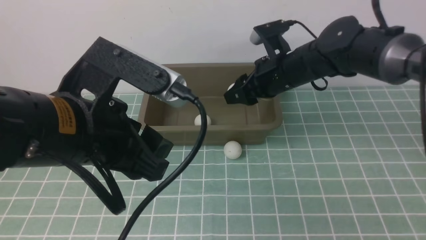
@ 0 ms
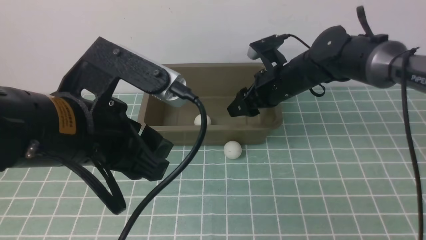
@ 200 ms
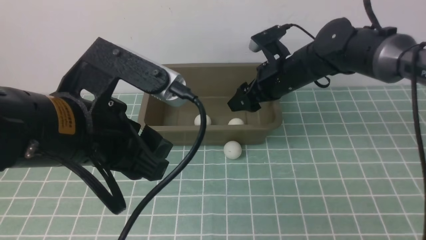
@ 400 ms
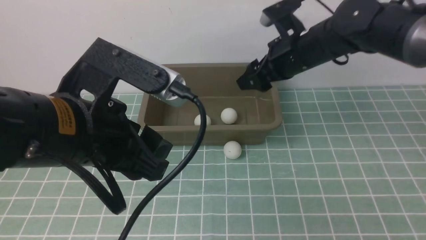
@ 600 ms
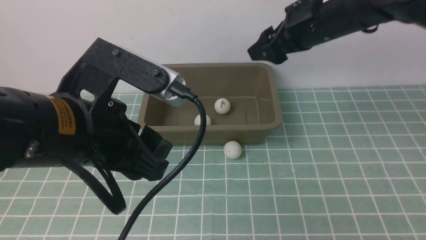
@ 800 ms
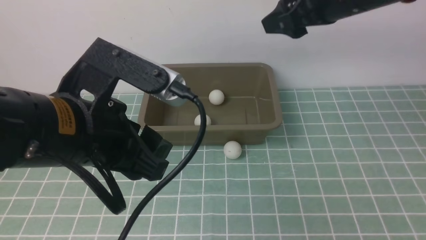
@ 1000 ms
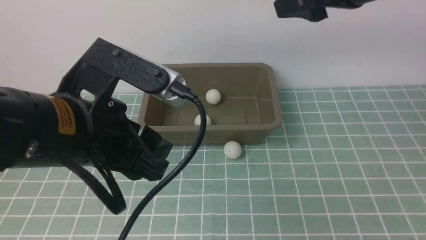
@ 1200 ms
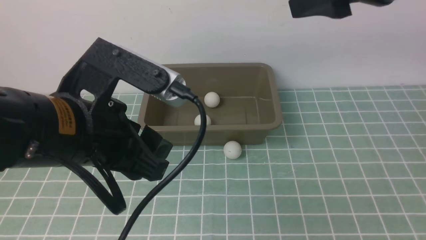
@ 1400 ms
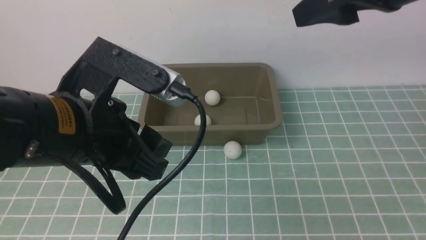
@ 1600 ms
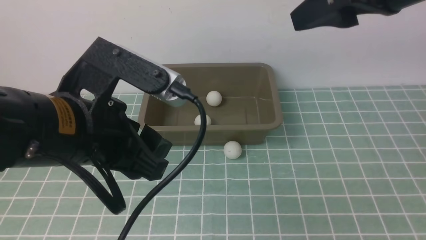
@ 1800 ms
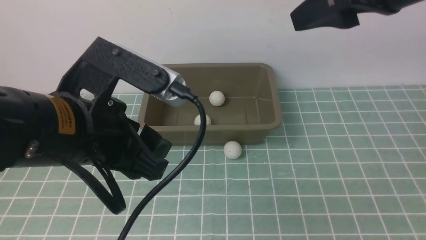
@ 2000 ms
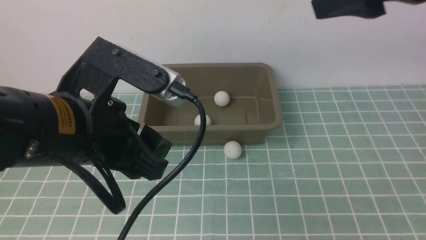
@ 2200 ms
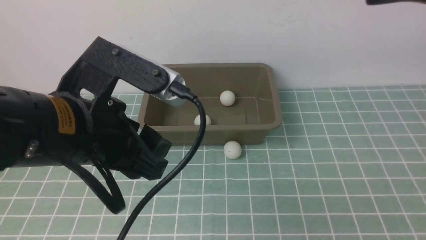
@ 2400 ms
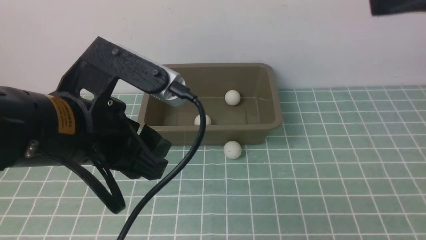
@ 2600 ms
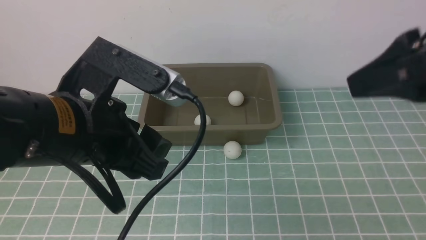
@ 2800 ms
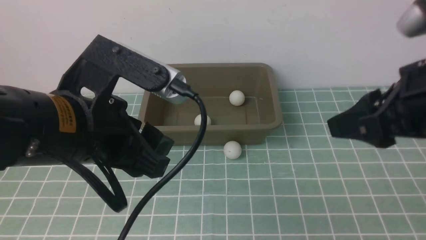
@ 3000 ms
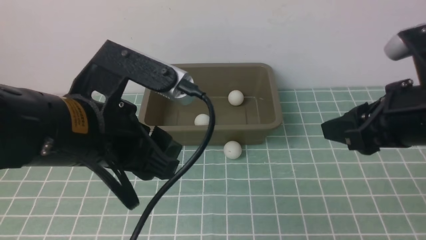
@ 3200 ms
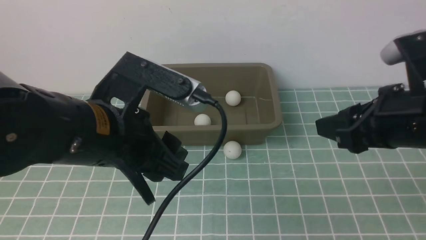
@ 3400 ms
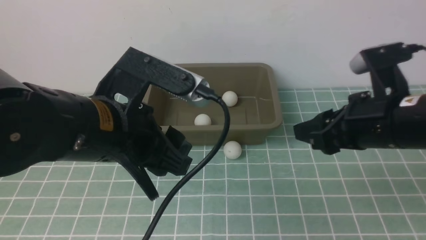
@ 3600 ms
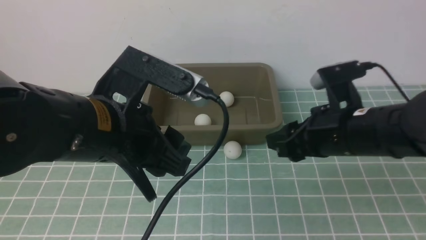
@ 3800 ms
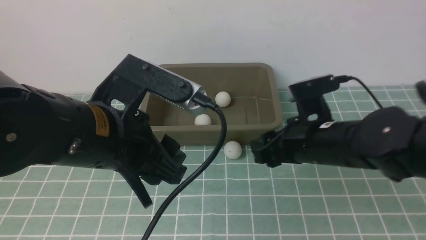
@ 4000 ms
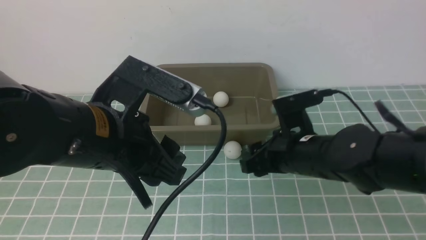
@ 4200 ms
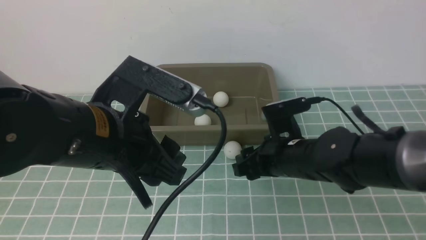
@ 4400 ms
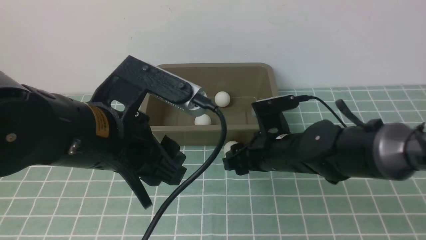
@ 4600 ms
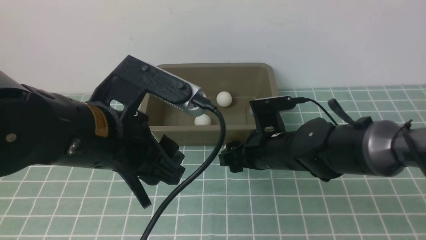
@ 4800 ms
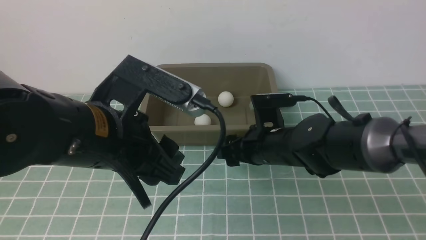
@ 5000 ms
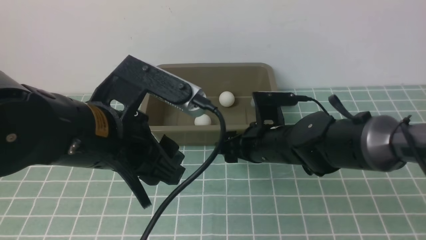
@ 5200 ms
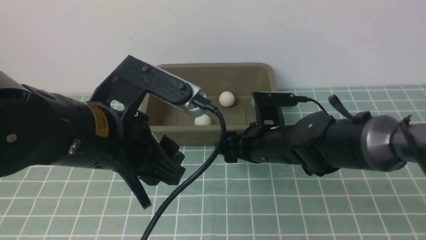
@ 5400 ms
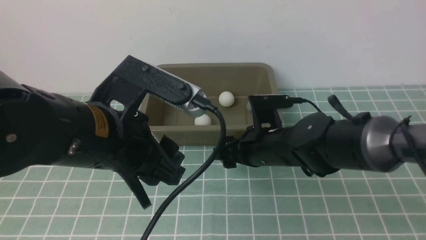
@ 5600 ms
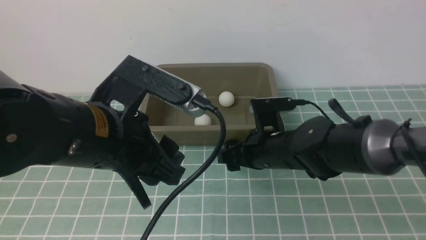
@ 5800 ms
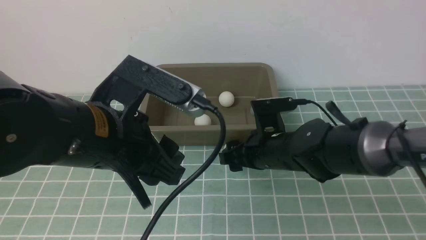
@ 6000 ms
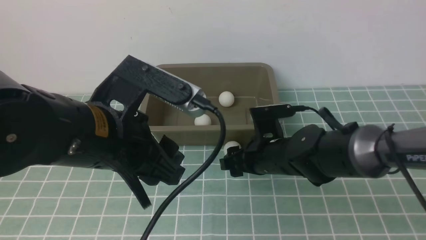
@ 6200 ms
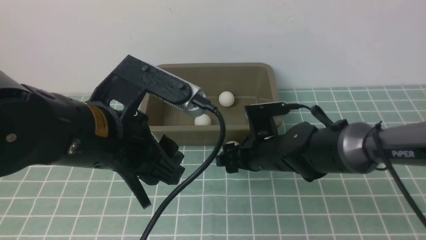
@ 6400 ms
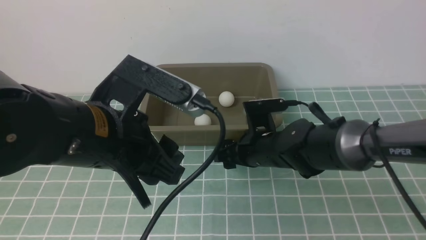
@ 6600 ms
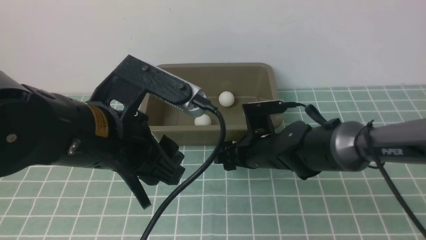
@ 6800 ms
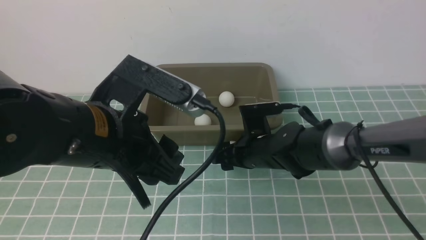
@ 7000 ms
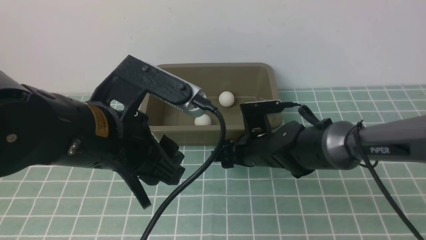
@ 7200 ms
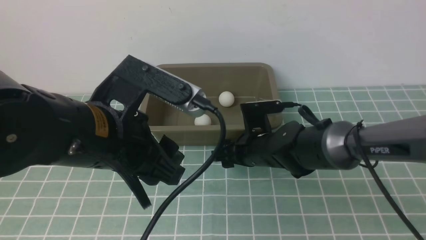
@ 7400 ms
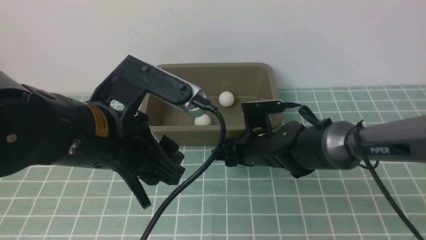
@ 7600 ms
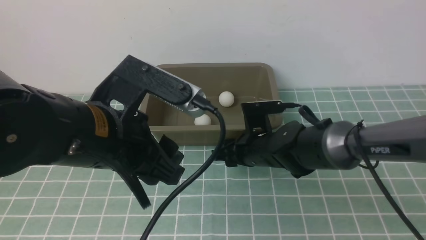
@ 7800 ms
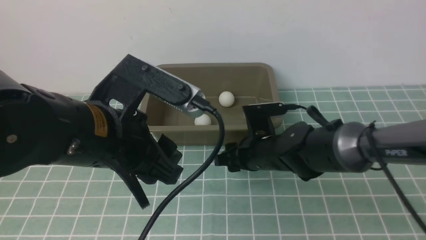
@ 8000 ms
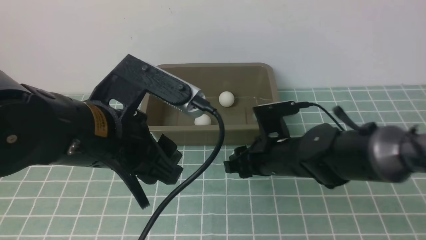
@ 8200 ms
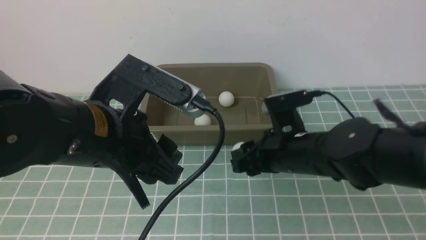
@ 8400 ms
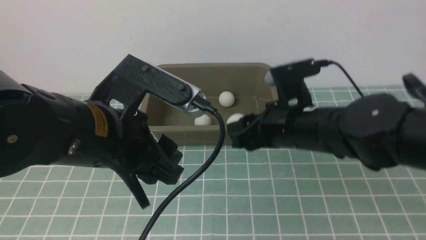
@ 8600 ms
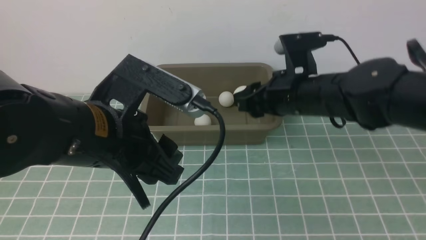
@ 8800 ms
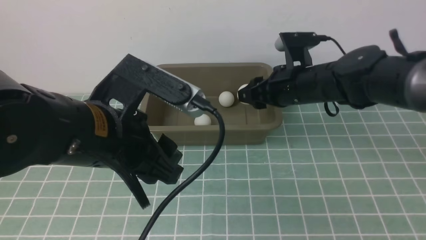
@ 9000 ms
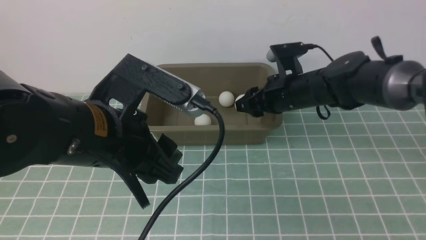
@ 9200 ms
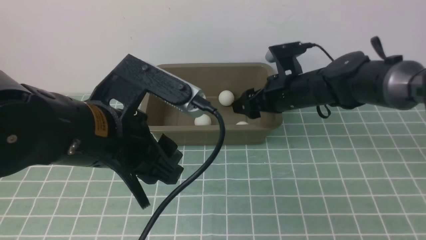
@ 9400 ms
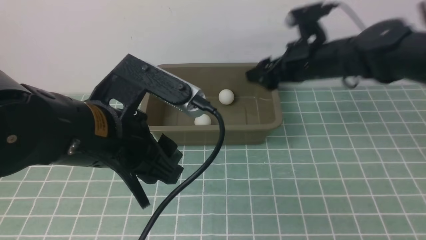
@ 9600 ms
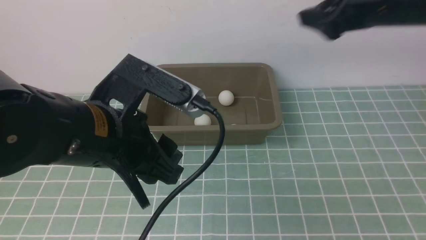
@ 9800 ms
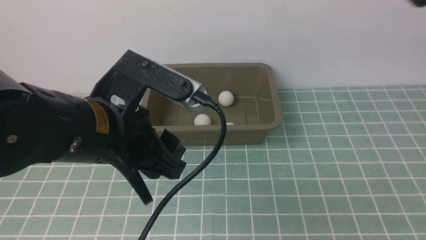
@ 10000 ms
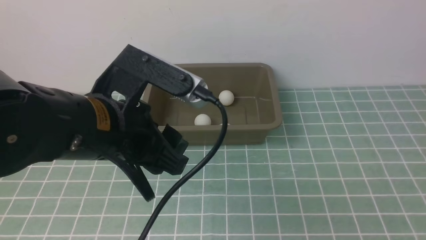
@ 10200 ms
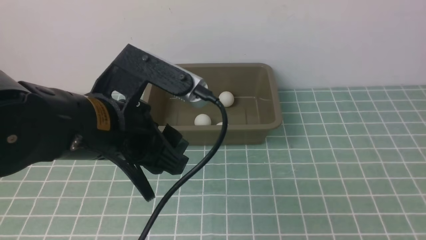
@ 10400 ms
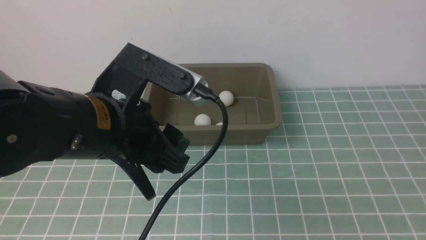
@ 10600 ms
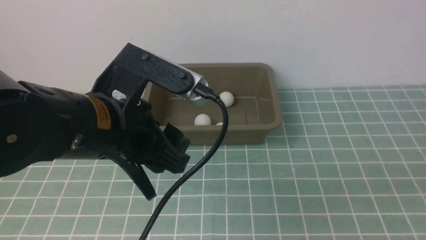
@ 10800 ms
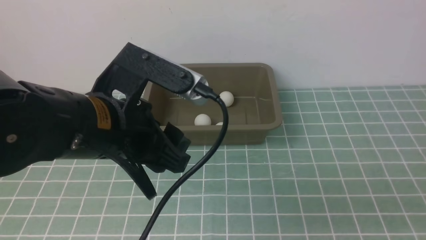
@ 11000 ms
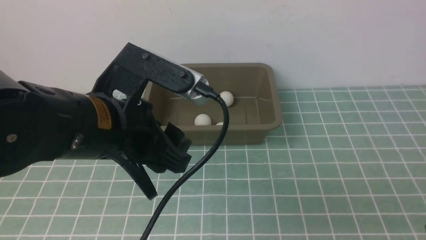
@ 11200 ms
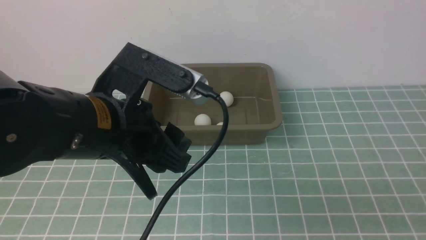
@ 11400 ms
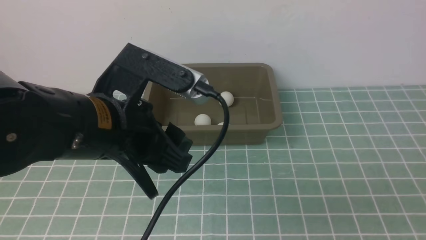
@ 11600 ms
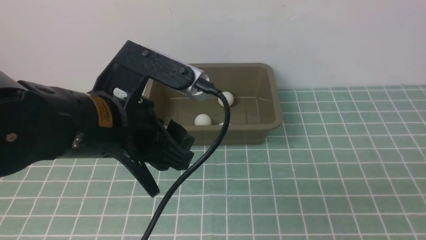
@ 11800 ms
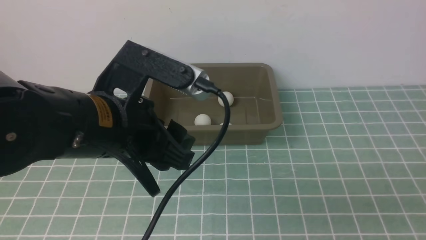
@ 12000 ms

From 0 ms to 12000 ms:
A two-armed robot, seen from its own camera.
Step, from 600 ms to 8000 ms: use the right arm to clamp the table tennis ball closest to it.
Step, from 8400 ms to 9400 ms: use the right arm to put the table tennis ball into the box.
From 0 ms to 1600 ms: The right gripper is displaced upward and backward by approximately 25 cm, and opens its fingers.
From 1600 ms to 3000 ms: The right gripper goes some 10 cm downward and backward, and closes.
From 3000 ms to 4400 ms: The right gripper shifts some 25 cm downward, to the left and forward.
From 4400 ms to 6000 ms: The grippers move only a little.
From 6000 ms to 7600 ms: The right gripper closes.
From 7600 ms to 9000 ms: The right gripper travels upward and to the right by about 10 cm.
From 9000 ms to 10400 ms: The right gripper heads backward, upward and to the right, covering about 35 cm, and opens up.
From 10400 ms to 12000 ms: The right gripper travels downward by some 25 cm, and closes.

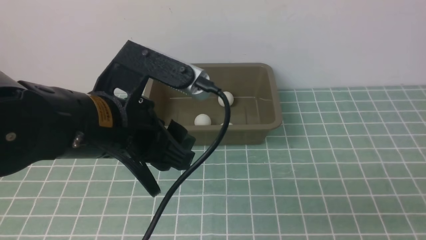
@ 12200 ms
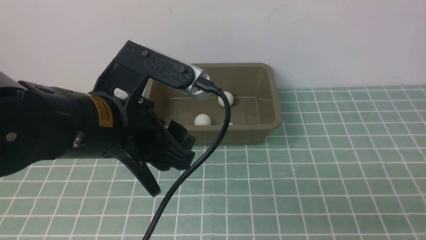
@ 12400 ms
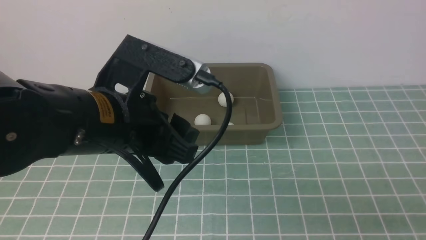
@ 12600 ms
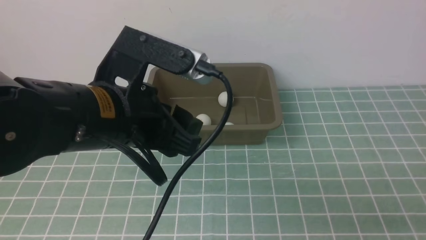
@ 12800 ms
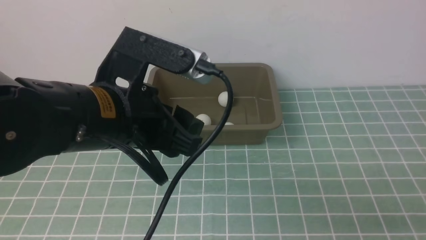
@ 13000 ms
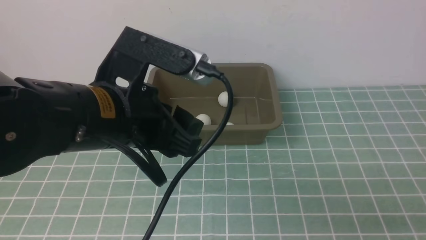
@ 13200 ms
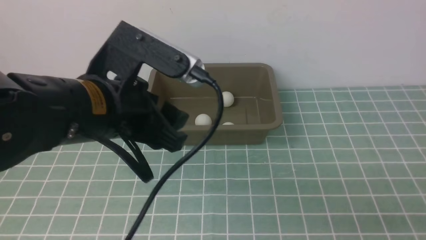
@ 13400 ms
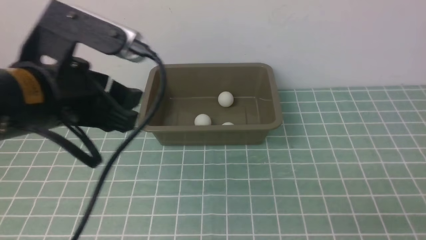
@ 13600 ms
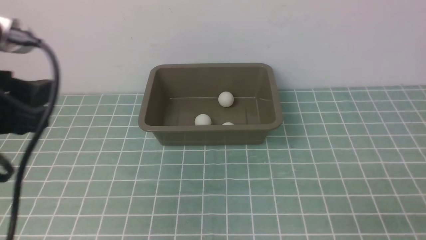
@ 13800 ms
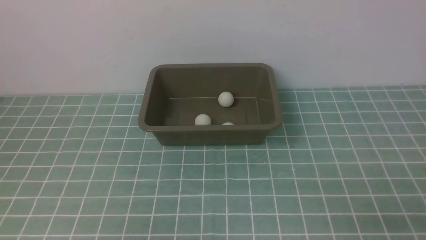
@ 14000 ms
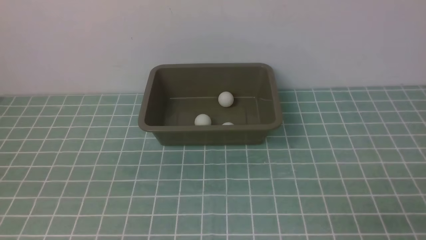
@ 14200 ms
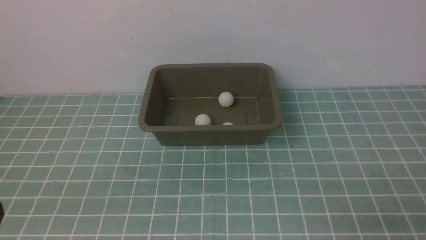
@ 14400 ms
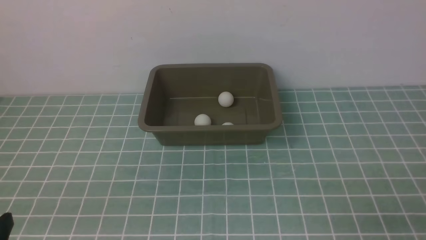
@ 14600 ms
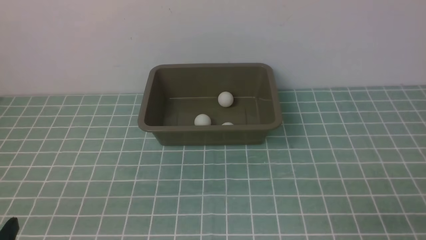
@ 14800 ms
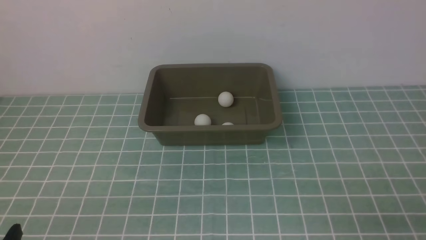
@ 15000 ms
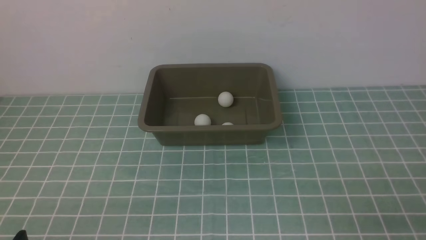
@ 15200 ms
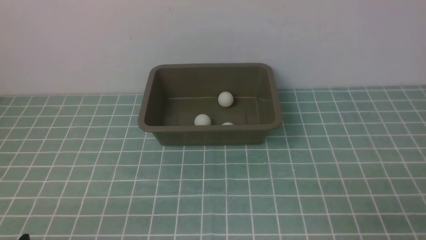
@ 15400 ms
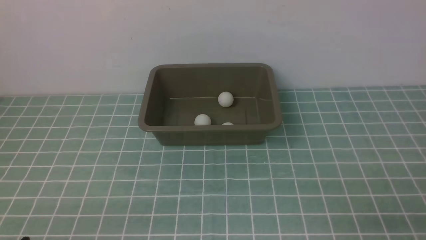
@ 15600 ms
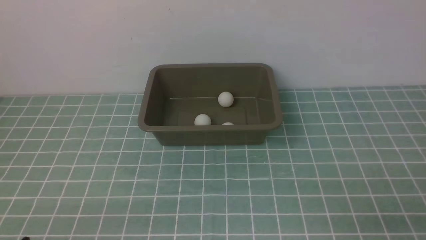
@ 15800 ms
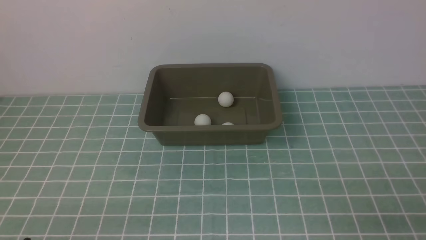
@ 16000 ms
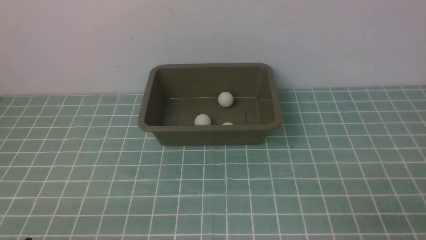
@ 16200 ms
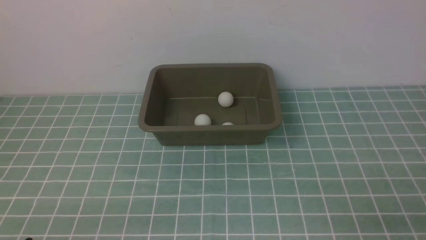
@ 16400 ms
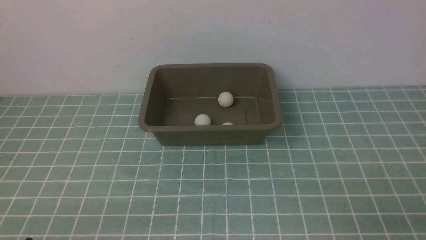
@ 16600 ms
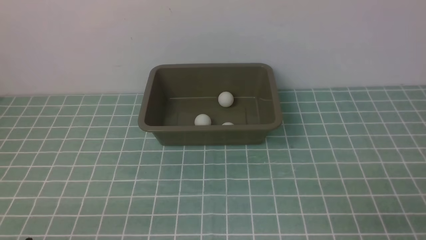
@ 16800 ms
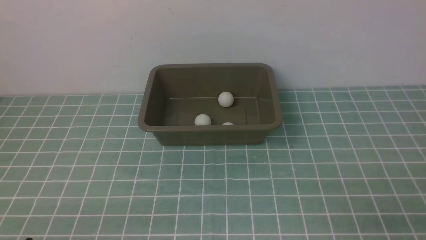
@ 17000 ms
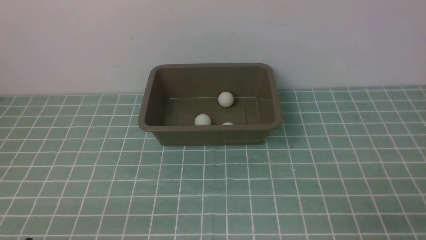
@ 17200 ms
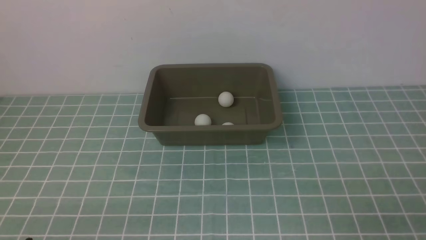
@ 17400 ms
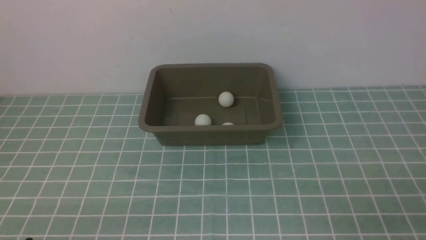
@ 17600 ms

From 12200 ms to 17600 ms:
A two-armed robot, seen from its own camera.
From 12200 ms to 13600 ms: The left gripper goes some 5 cm to the left.
From 13600 ms to 15000 ms: The left gripper goes about 25 cm downward, backward and to the left.
